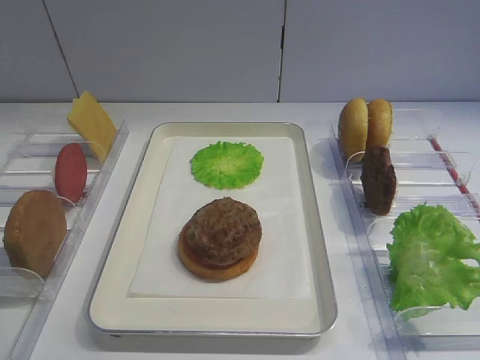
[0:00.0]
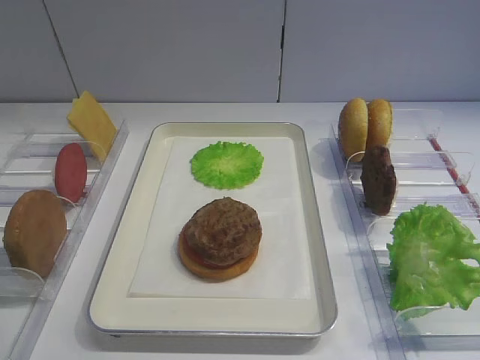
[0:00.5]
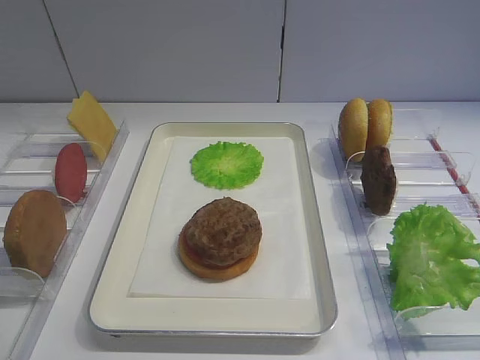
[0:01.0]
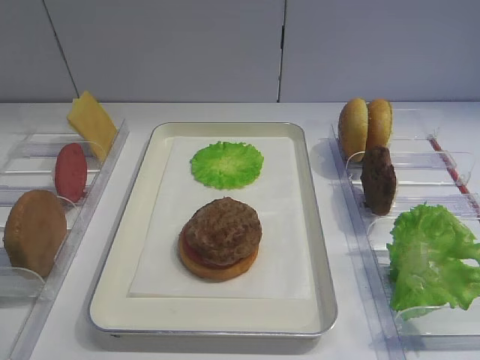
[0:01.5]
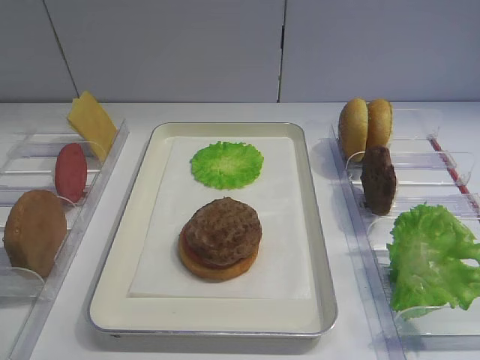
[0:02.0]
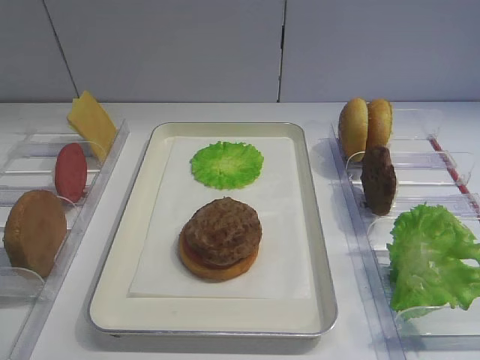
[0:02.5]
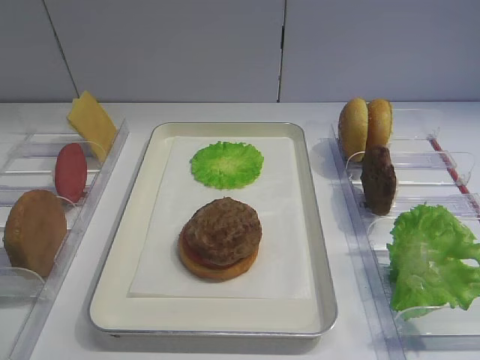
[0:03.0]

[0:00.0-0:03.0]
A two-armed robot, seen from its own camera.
0:00.0 to 0:03.0: Neither gripper changes place.

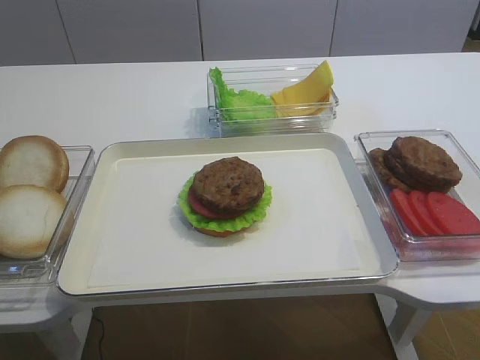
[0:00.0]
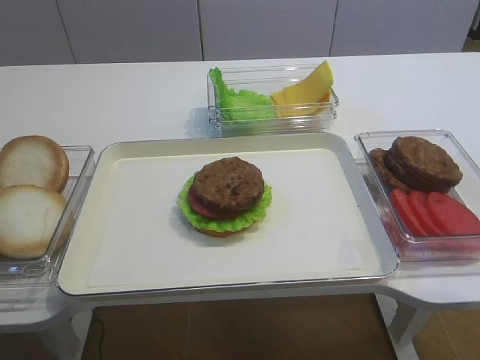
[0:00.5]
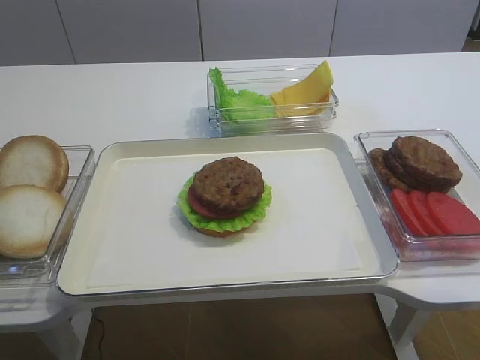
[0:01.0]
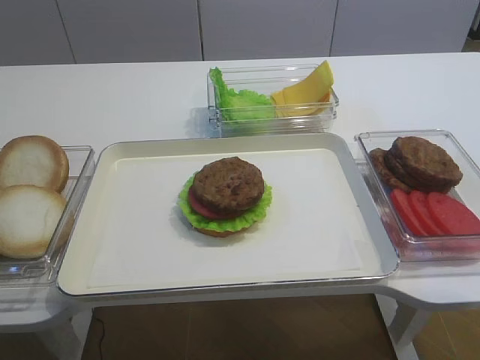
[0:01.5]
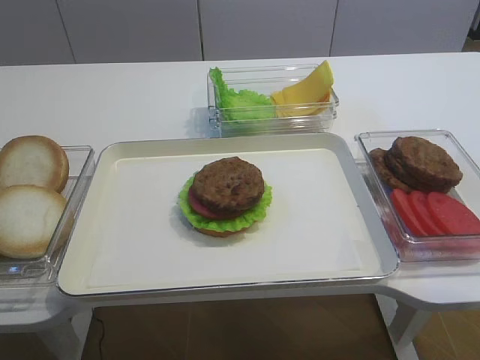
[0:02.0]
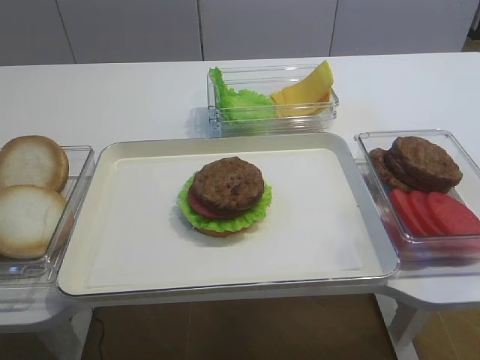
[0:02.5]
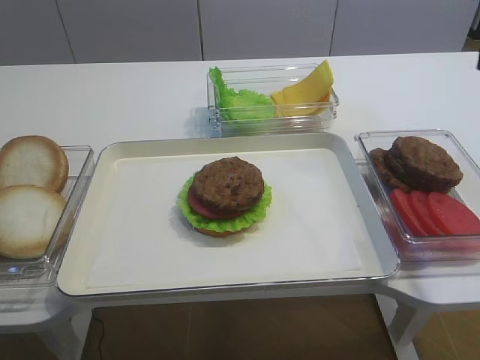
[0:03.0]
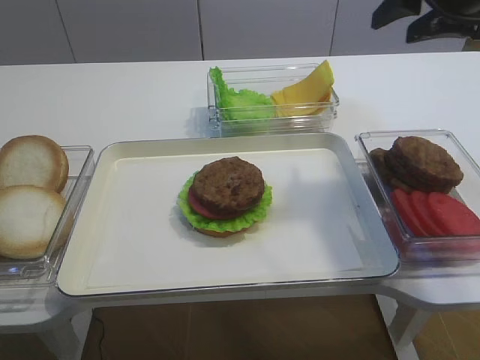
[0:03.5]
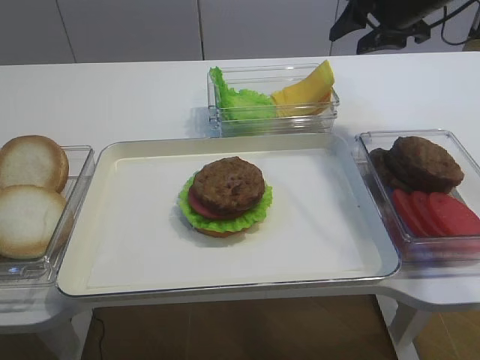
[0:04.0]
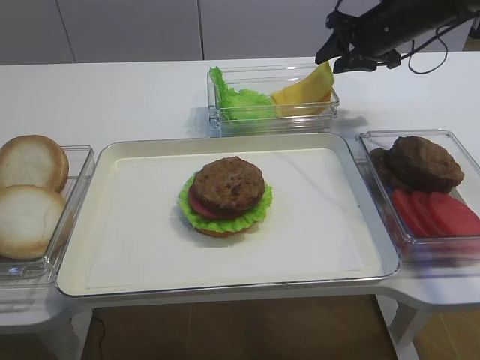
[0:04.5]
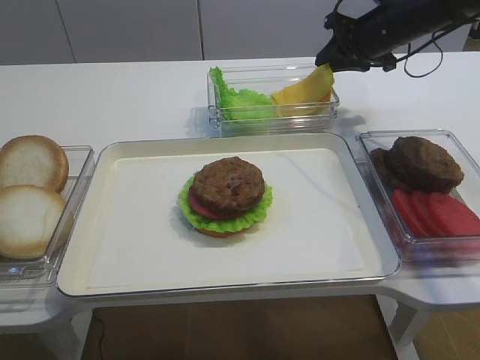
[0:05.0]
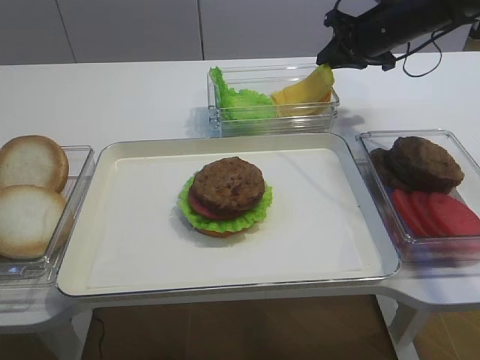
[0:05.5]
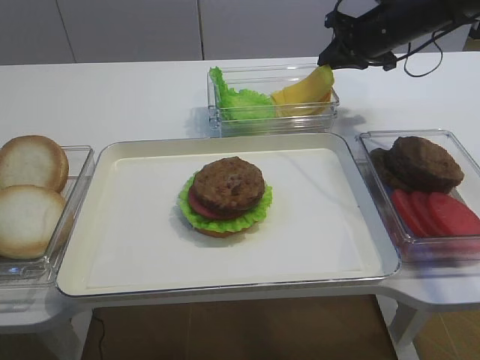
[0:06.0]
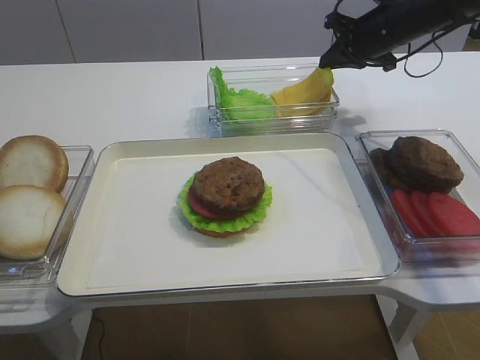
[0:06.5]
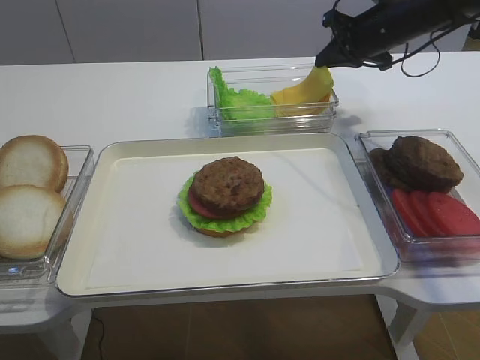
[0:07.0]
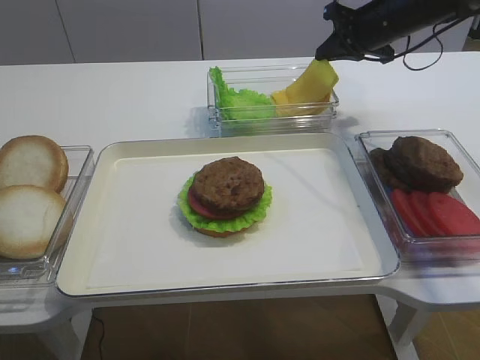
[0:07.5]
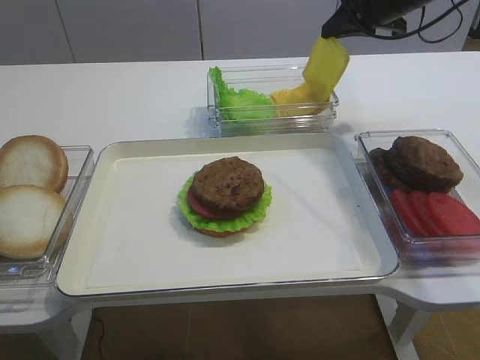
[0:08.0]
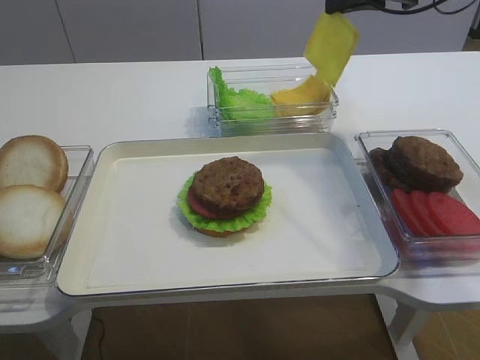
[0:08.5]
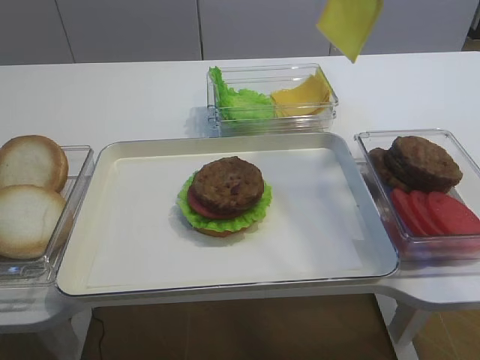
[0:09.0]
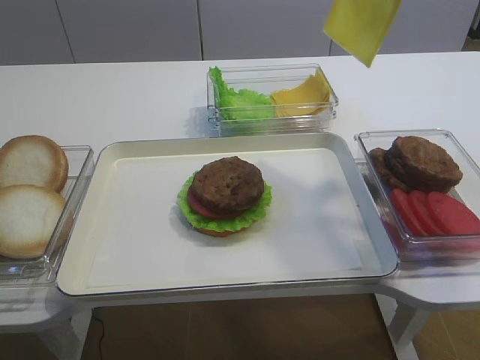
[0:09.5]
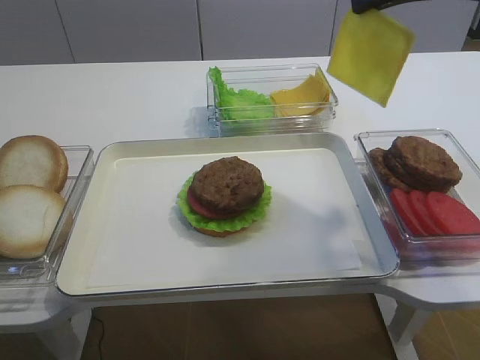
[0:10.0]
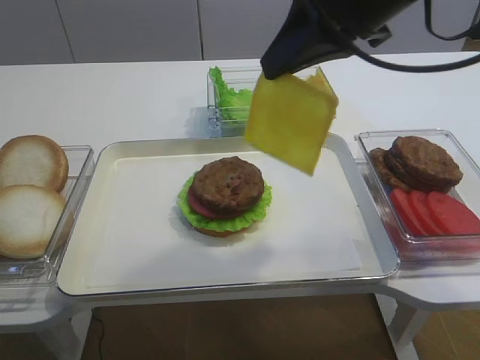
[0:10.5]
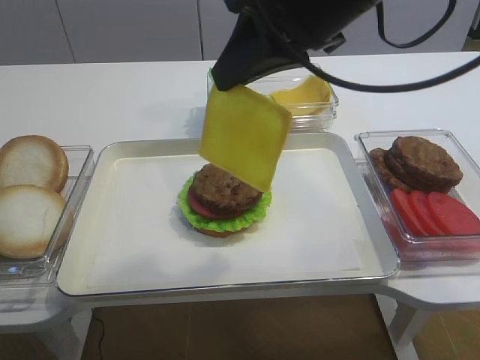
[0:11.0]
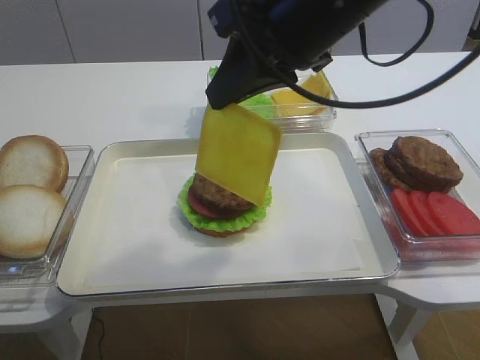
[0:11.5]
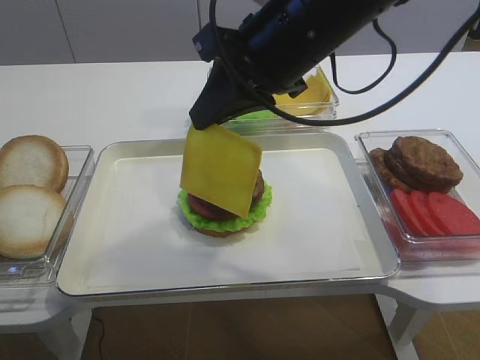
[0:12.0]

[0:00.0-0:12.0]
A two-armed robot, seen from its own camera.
Step, 0:00.0 to 0:07.5: Pick up the cheese slice with the right gripper.
0:02.0 to 0:04.0: The right gripper travels forward by some 50 cm.
0:04.0 to 0:06.0: The right gripper heads downward, covering about 5 cm, and closes its fingers.
0:06.0 to 0:08.0: The right gripper moves upward, about 5 cm.
0:08.0 to 0:10.0: The right gripper heads backward and upward, covering some 20 cm.
0:10.0 to 0:12.0: The right gripper goes roughly 15 cm to the left and downward.

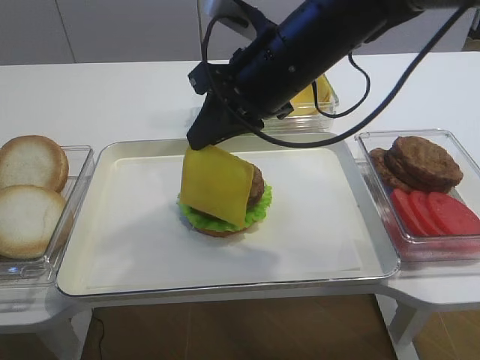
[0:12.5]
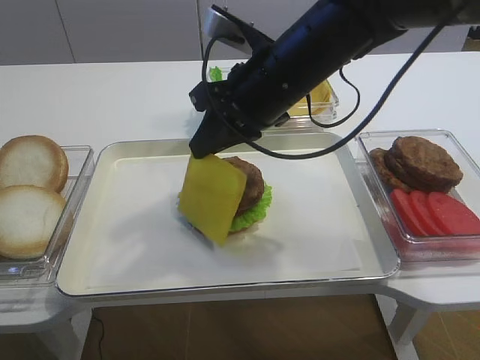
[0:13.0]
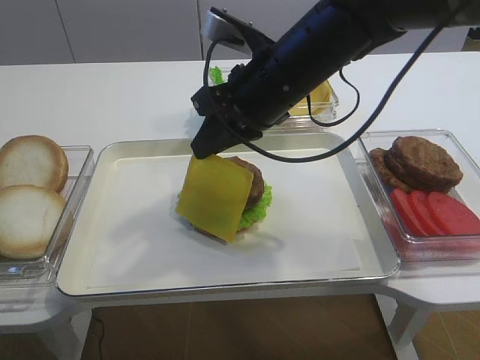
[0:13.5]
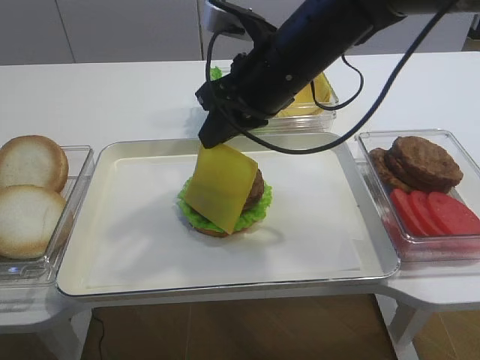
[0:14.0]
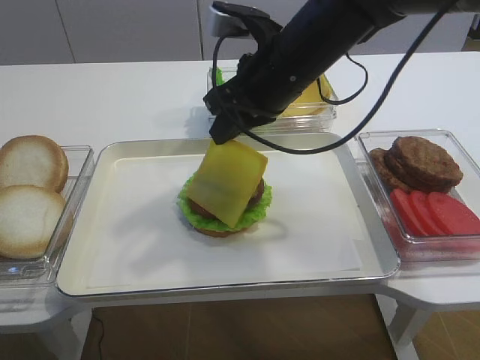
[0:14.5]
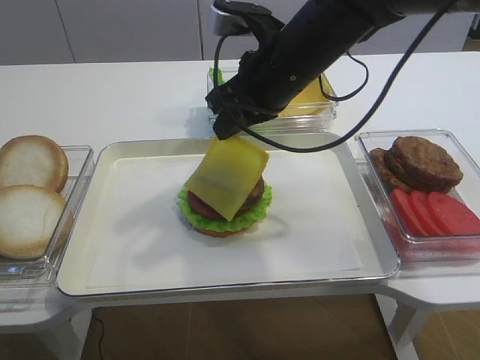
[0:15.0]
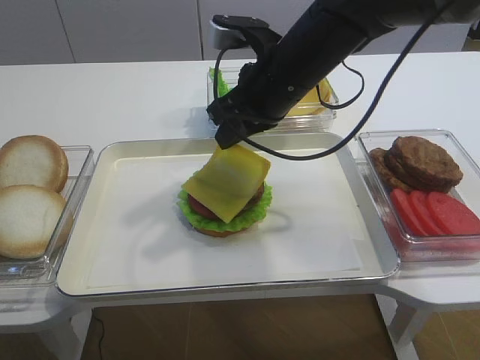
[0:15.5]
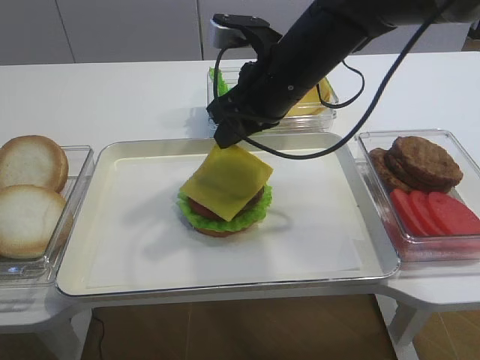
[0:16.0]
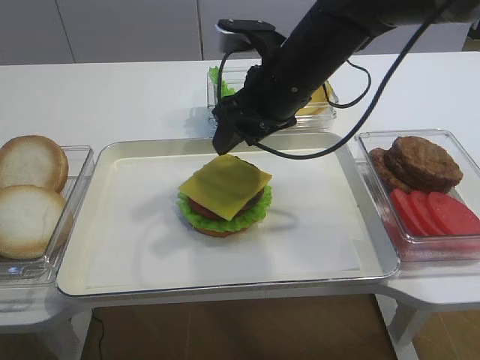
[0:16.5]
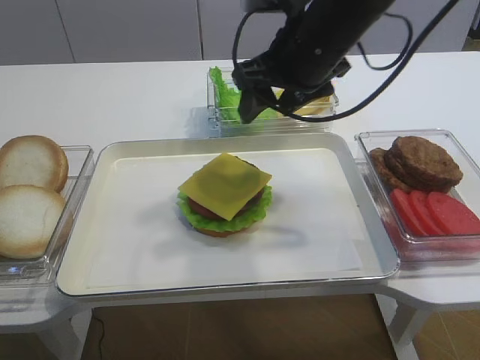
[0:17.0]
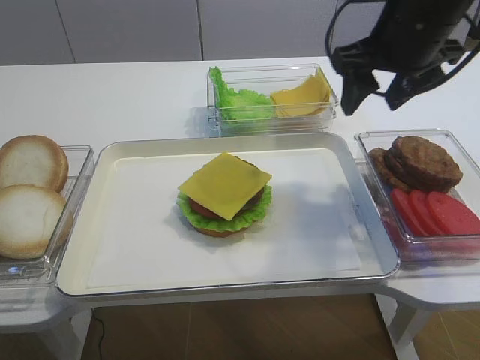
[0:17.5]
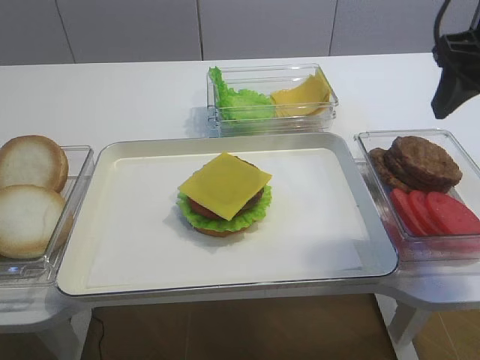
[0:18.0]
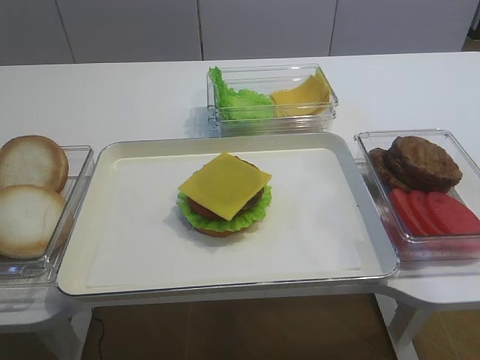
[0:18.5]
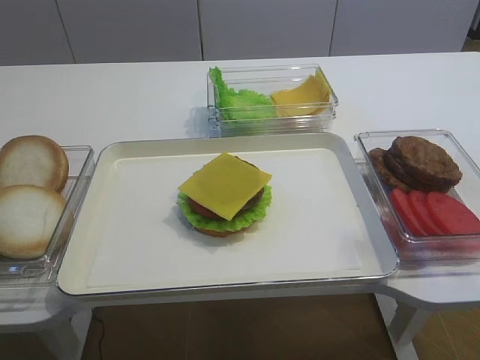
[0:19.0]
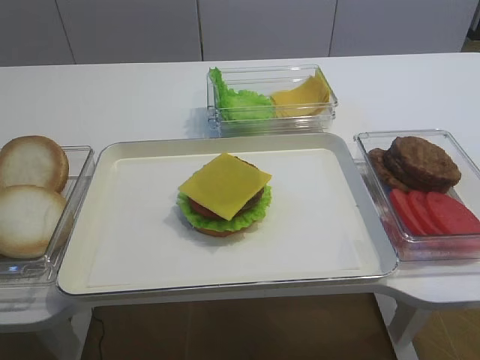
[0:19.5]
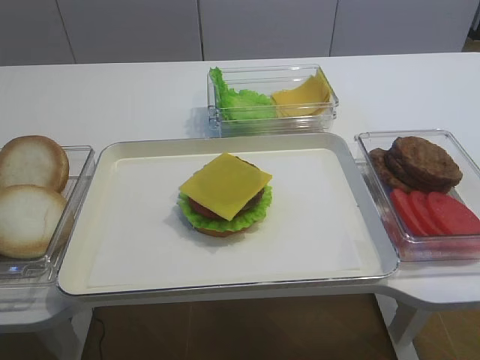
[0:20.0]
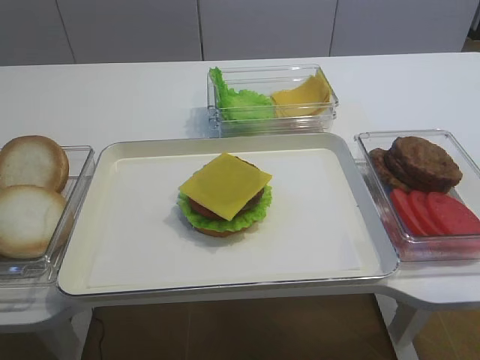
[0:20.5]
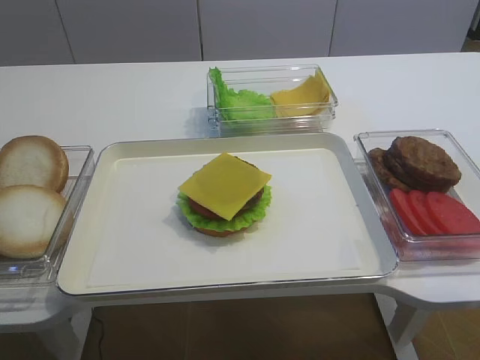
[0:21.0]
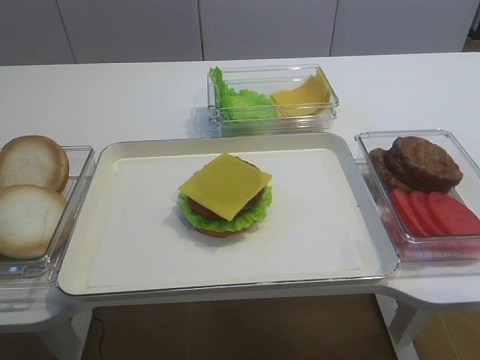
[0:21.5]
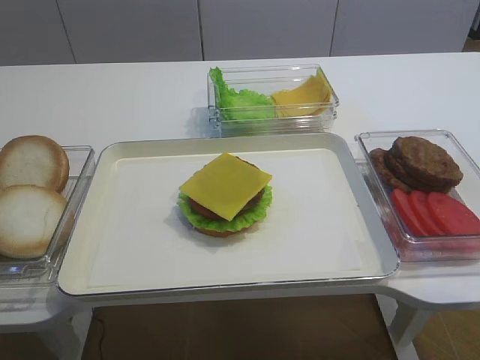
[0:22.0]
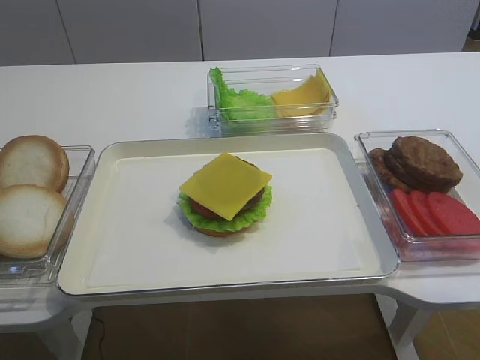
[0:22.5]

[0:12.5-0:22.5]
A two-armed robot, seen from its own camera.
Step, 0:12.5 to 0:16.5: Place the cheese slice on the cutlet with the right gripper.
0:12.5 to 0:14.5: The grippers stay close to where they were, moving slightly.
0:14.5 to 0:16.5: The right gripper opens its fingers.
0:16.5 to 0:18.5: The right gripper goes some 30 cm backward, to the right and upward.
